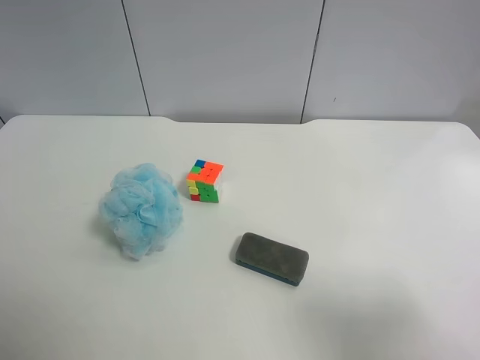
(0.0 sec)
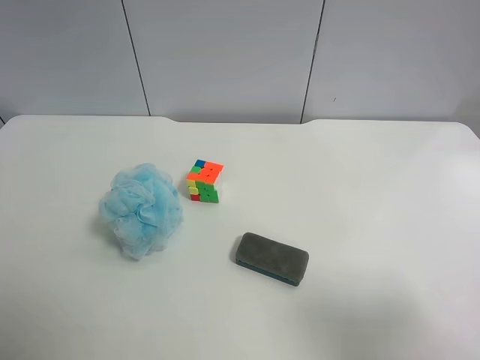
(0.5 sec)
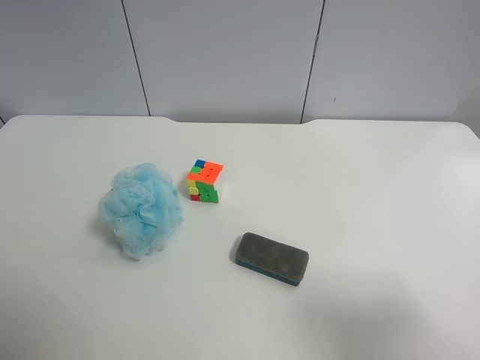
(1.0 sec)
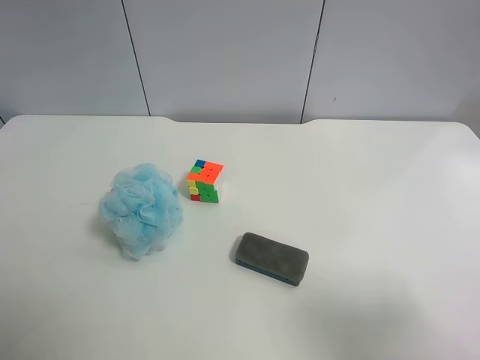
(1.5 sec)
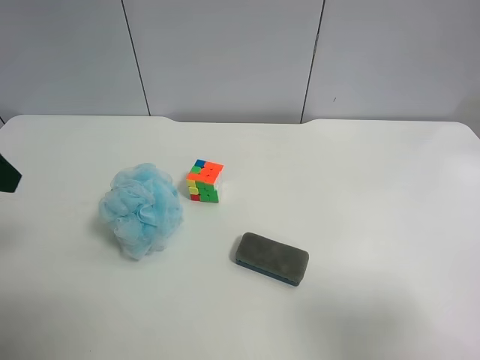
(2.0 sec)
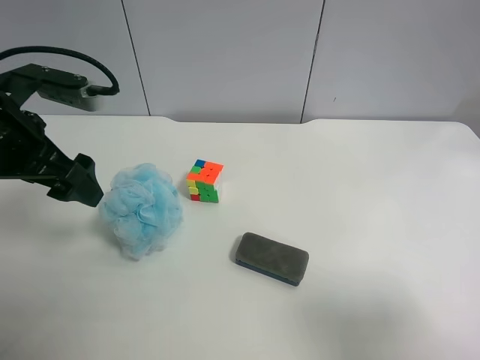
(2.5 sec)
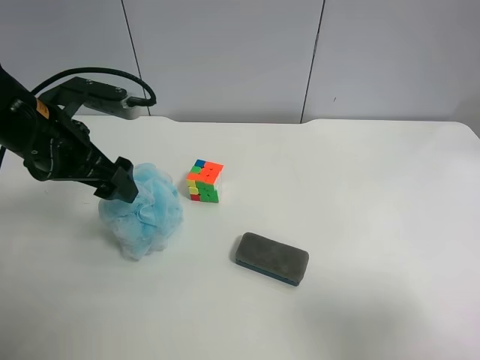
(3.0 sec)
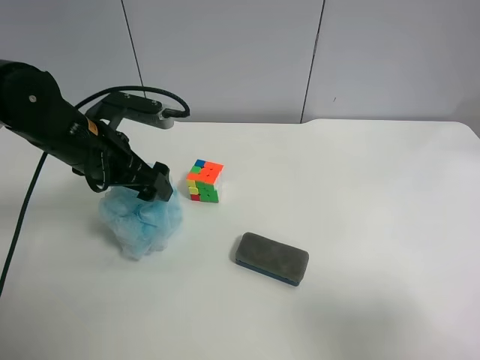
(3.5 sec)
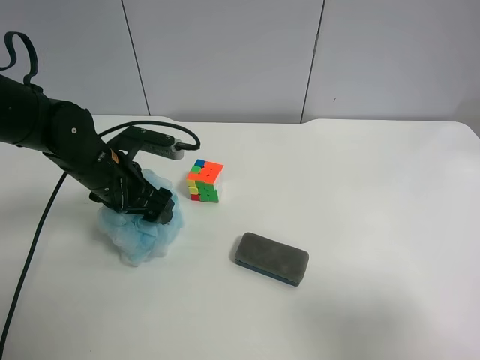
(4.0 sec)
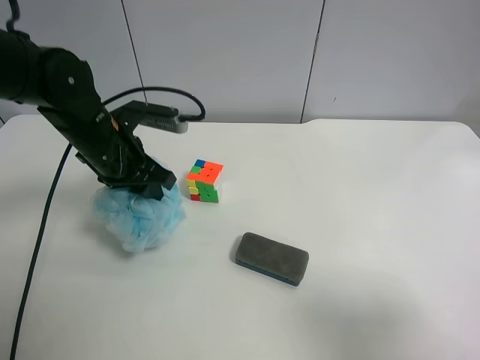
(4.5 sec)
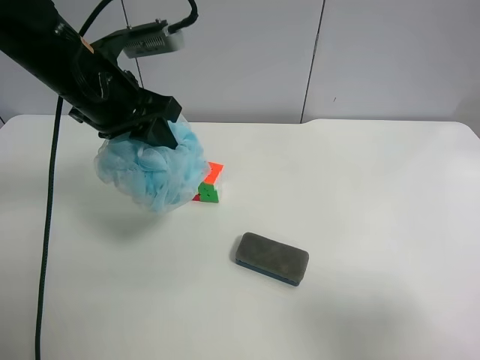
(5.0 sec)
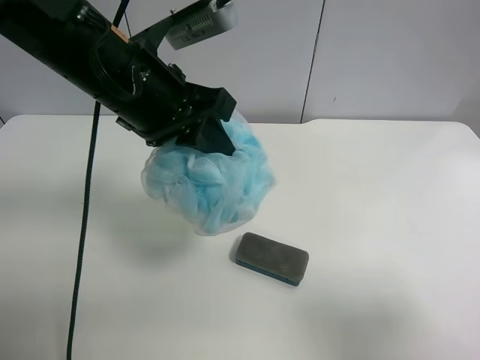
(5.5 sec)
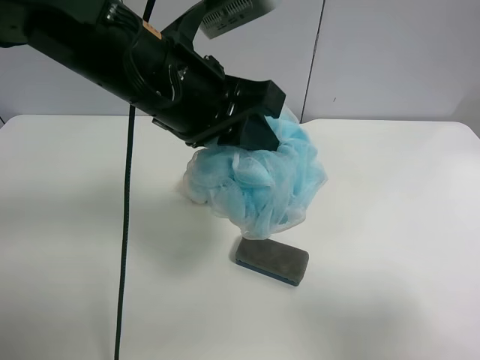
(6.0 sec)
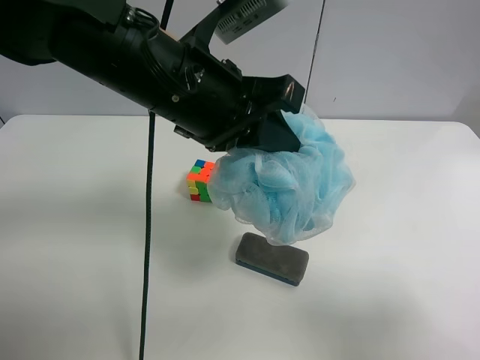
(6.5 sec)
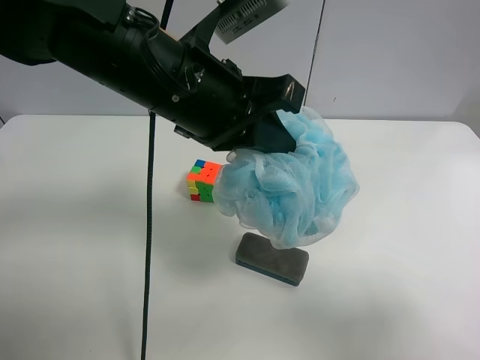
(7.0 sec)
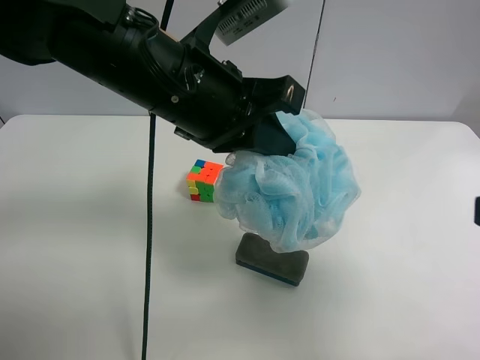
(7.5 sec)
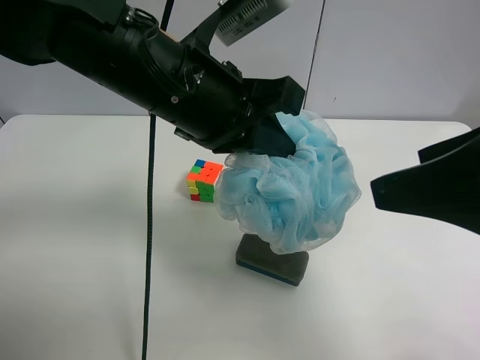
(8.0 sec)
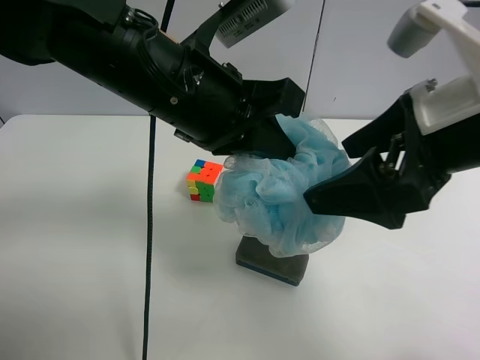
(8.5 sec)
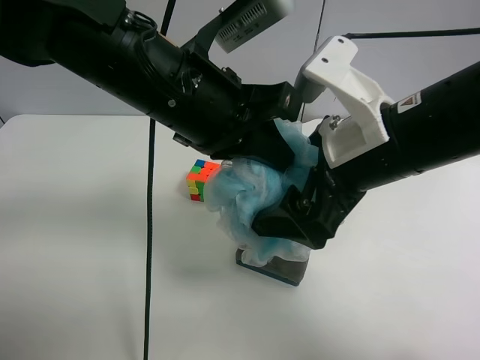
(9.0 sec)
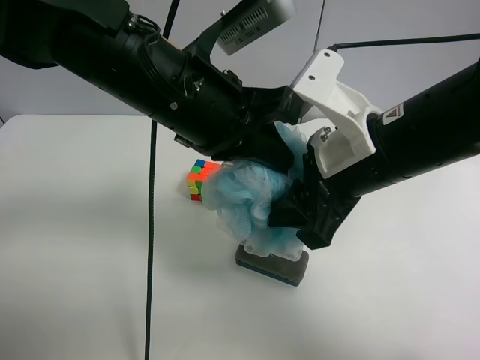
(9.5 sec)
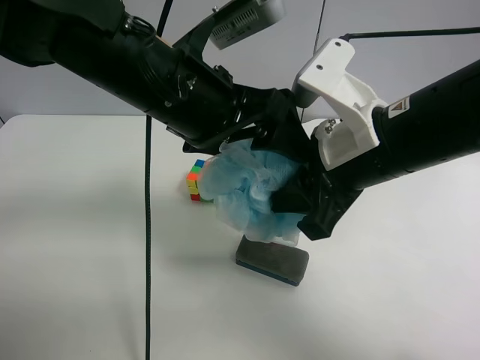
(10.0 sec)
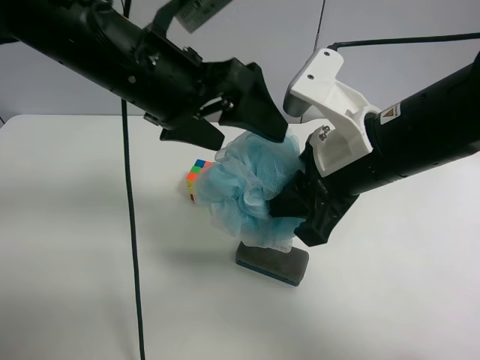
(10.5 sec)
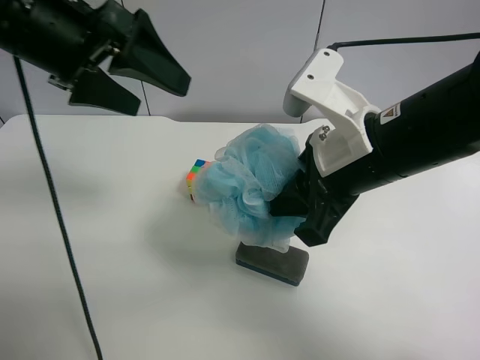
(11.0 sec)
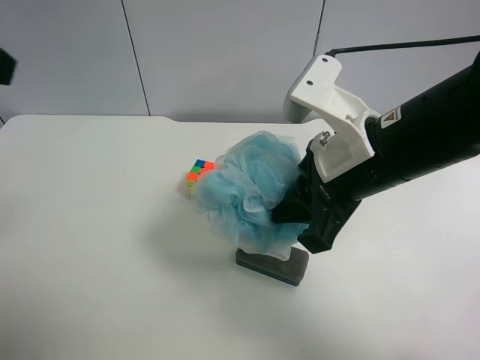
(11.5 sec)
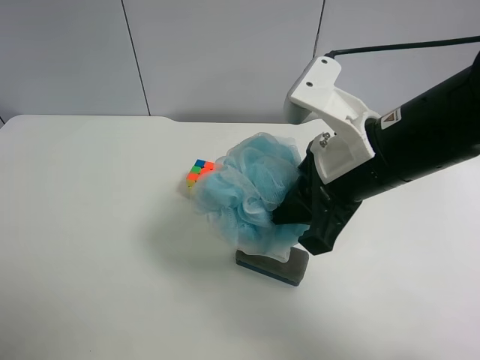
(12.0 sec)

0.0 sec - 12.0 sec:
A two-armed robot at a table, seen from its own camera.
Task of the whole recording: use the left gripper to pick up the item and transfer it from the left gripper to the right gripper.
2.0 sec - 4.0 sec: The left gripper shifts roughly 25 cm downward, forward and to the right.
4.0 sec - 6.0 sec: The left gripper goes approximately 20 cm upward and to the right, and closes its fingers.
6.0 sec - 8.0 sec: The right gripper shifts some 15 cm forward and to the left.
8.0 sec - 10.0 sec: The right gripper is displaced to the left, forward and downward by approximately 15 cm, and closes its fingers; the left gripper opens up.
10.0 sec - 12.0 sec: The left gripper moves to the left and backward, roughly 30 cm.

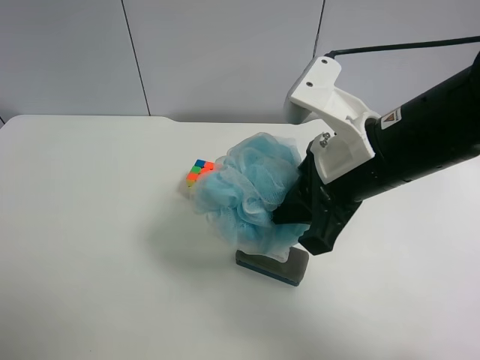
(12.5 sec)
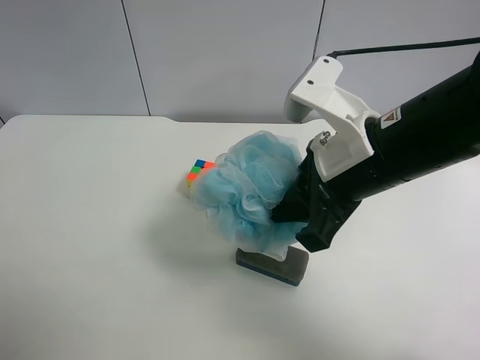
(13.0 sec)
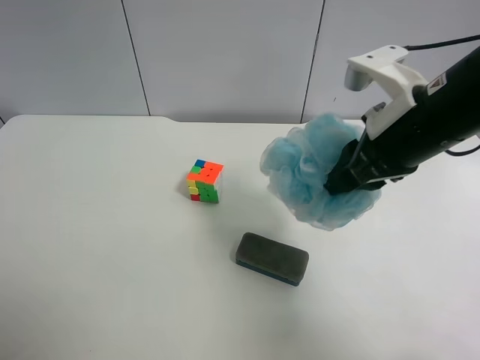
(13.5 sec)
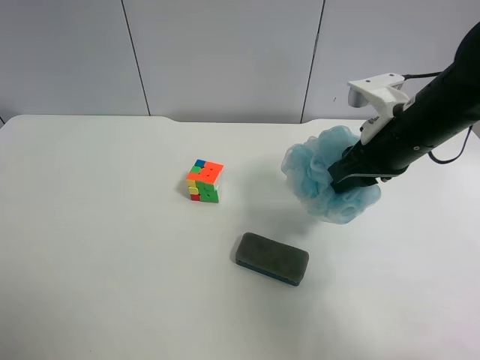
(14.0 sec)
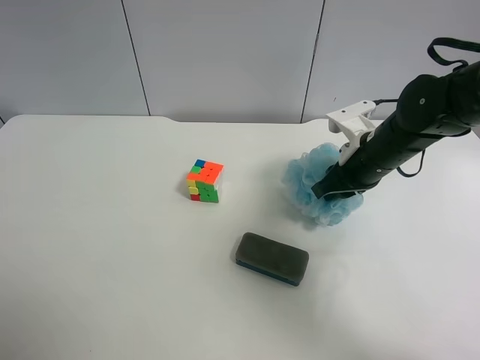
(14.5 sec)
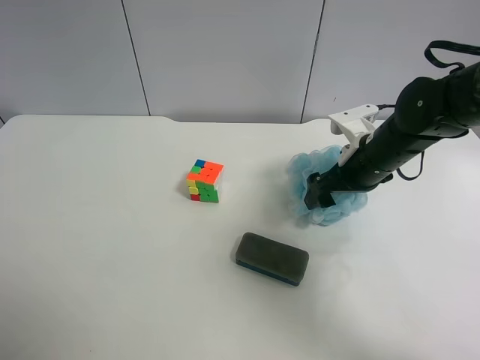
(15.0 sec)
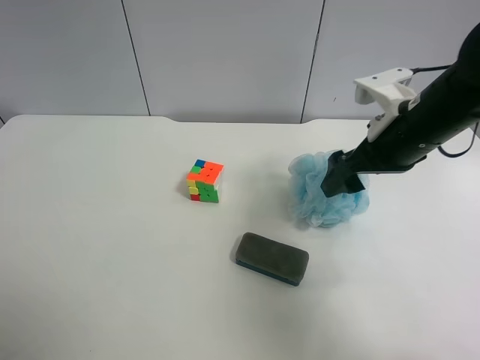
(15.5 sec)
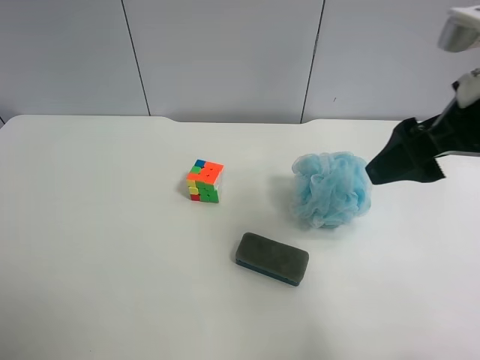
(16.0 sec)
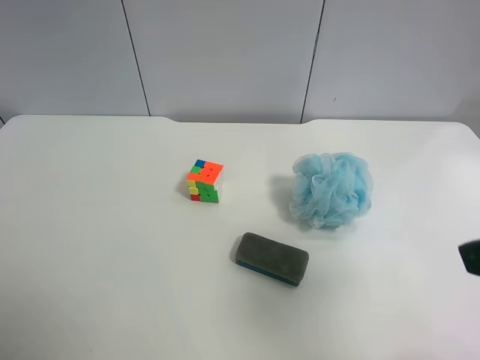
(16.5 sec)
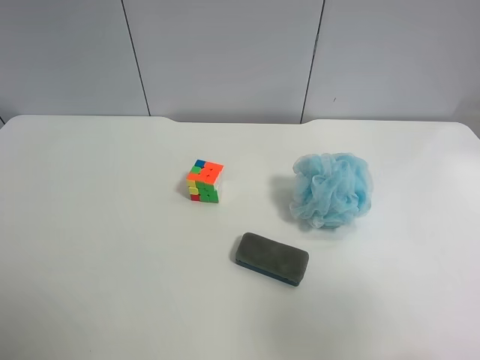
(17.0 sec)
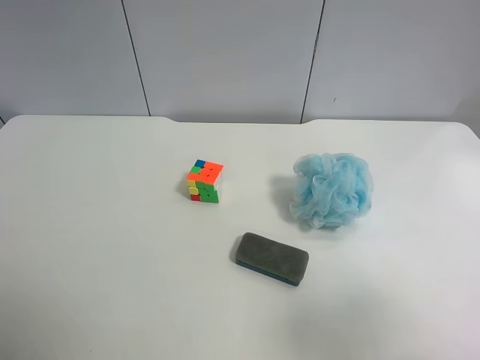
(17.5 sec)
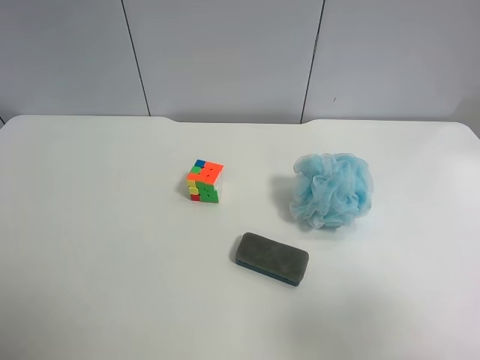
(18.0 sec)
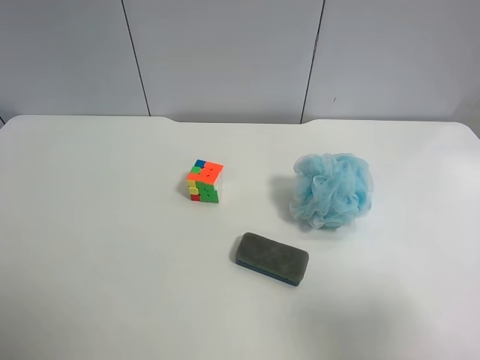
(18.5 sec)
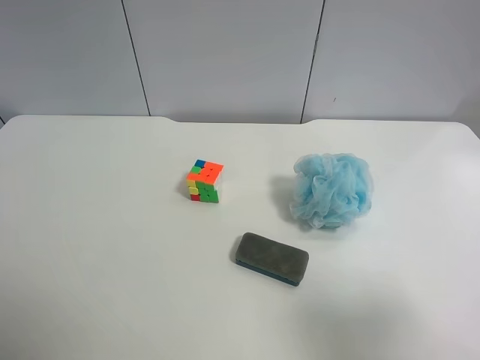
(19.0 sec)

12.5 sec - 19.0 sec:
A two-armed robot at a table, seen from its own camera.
Task of the whole recording: use the left gripper to pick up the item and transfer it from the left gripper to the right gripper.
12.5 sec - 14.5 sec: The right gripper goes approximately 15 cm forward, downward and to the right.
14.5 sec - 17.0 sec: The right gripper is displaced backward and upward by approximately 35 cm, and opens.
